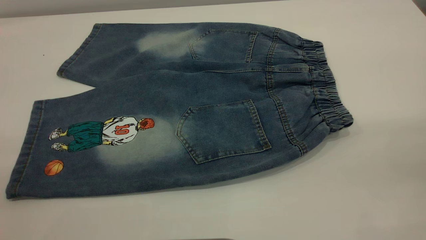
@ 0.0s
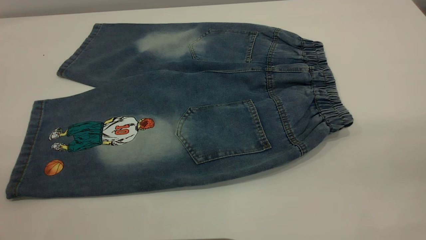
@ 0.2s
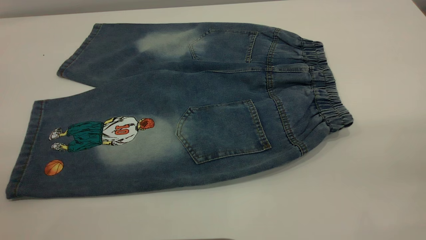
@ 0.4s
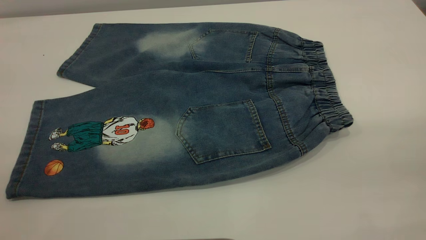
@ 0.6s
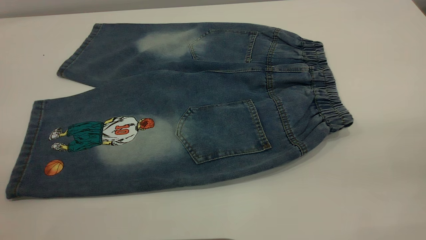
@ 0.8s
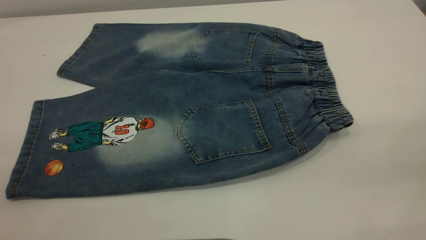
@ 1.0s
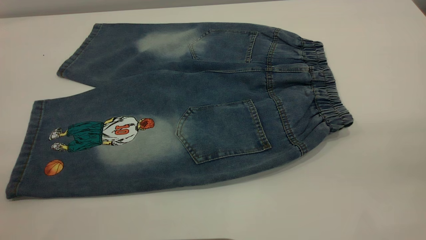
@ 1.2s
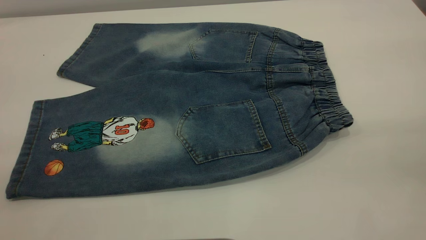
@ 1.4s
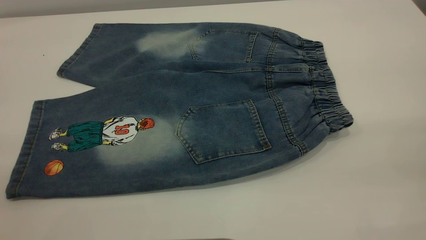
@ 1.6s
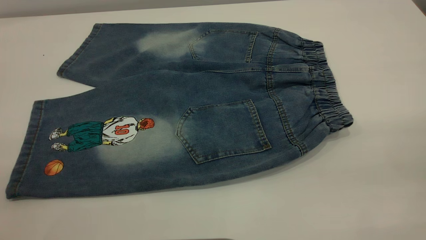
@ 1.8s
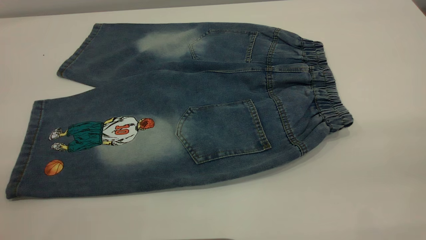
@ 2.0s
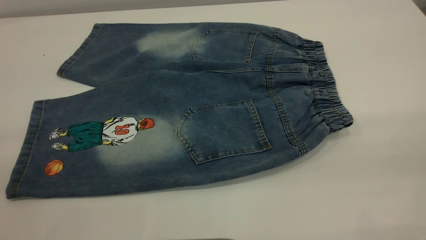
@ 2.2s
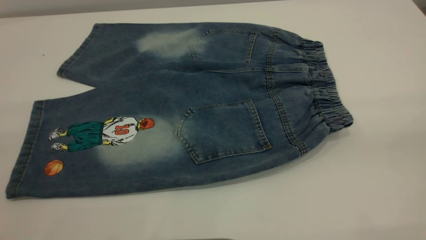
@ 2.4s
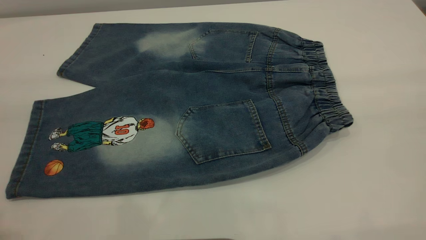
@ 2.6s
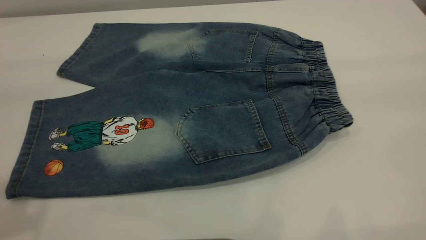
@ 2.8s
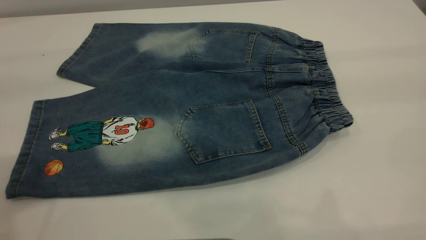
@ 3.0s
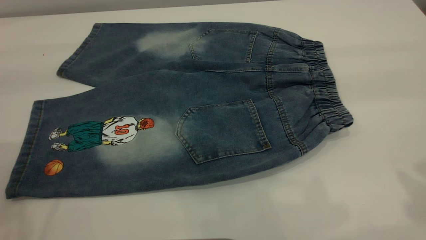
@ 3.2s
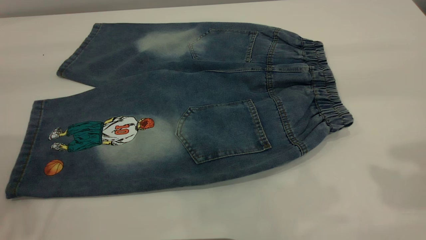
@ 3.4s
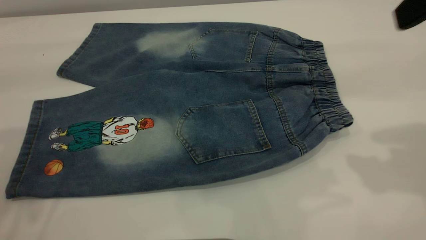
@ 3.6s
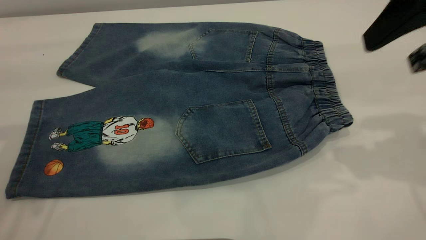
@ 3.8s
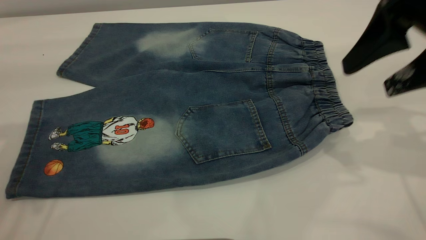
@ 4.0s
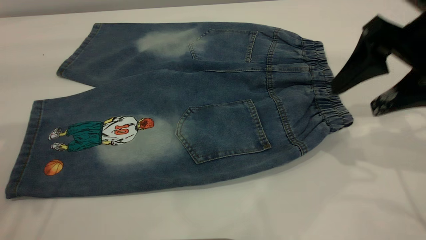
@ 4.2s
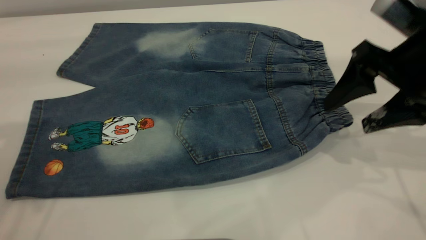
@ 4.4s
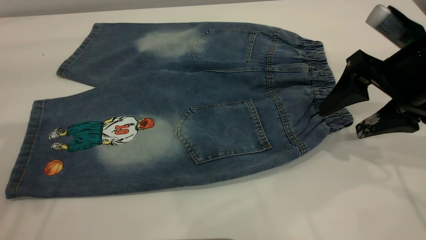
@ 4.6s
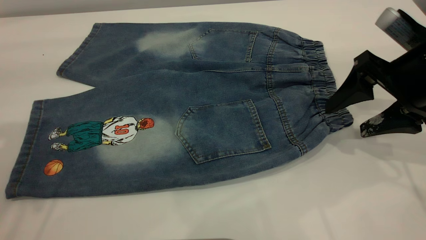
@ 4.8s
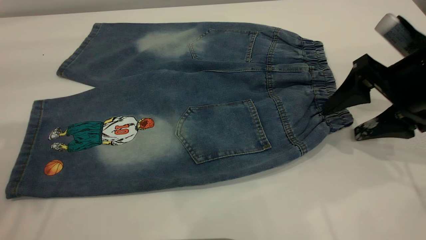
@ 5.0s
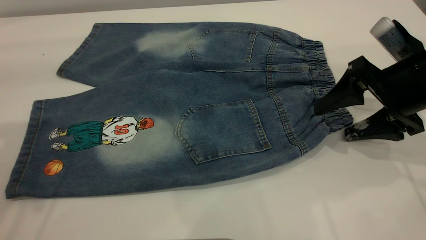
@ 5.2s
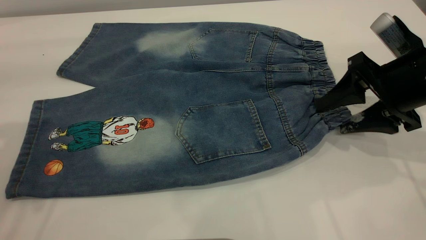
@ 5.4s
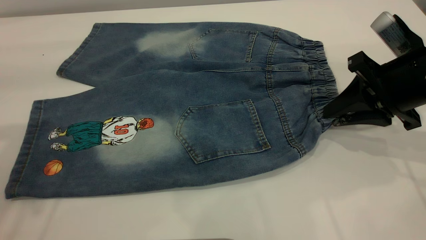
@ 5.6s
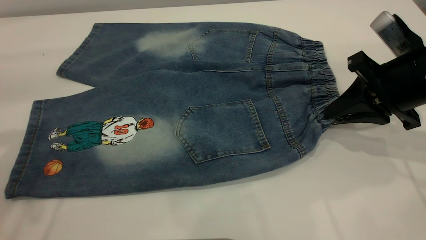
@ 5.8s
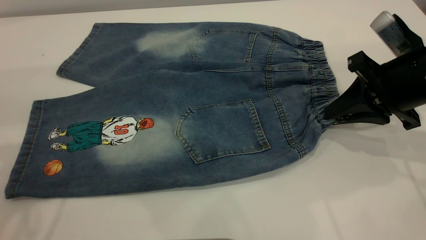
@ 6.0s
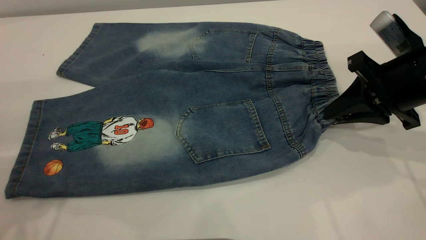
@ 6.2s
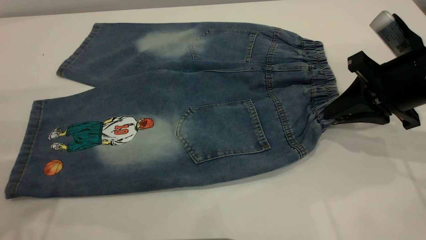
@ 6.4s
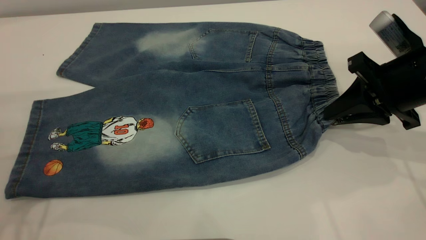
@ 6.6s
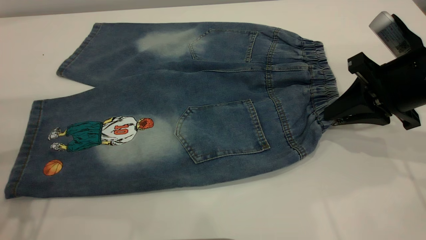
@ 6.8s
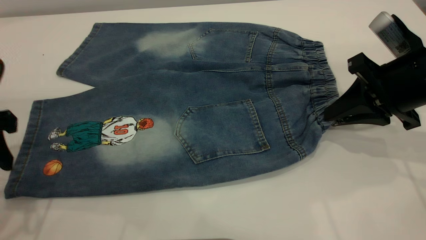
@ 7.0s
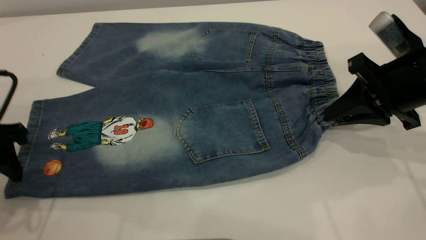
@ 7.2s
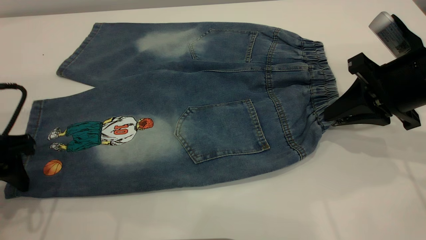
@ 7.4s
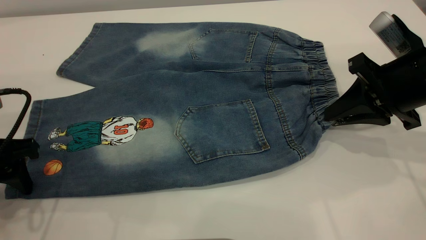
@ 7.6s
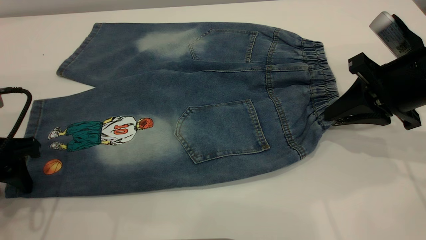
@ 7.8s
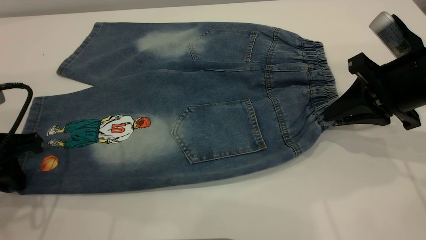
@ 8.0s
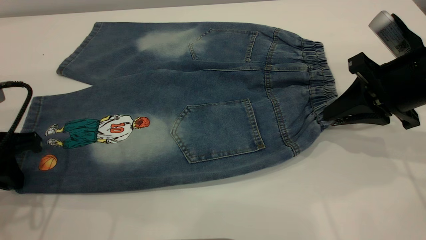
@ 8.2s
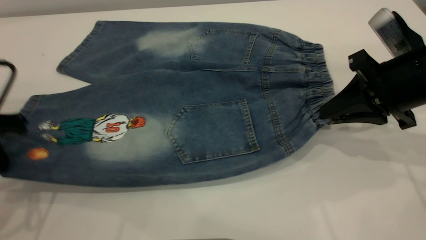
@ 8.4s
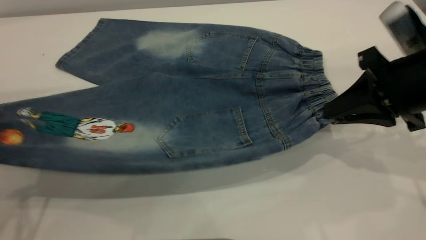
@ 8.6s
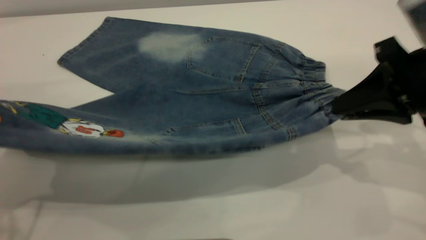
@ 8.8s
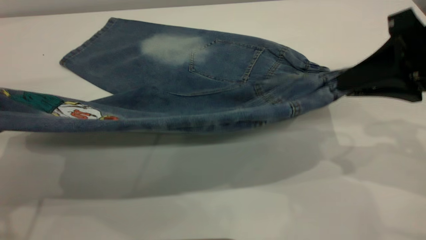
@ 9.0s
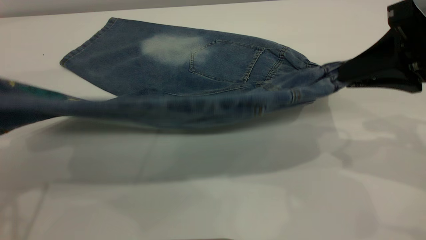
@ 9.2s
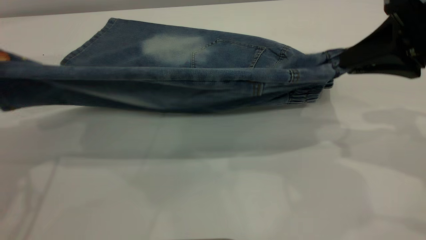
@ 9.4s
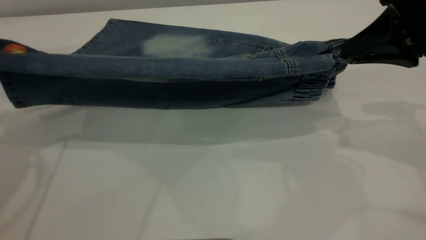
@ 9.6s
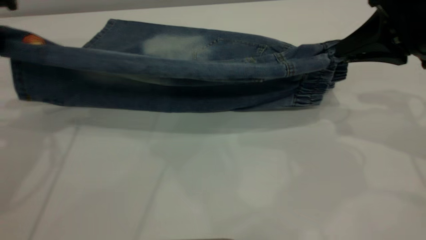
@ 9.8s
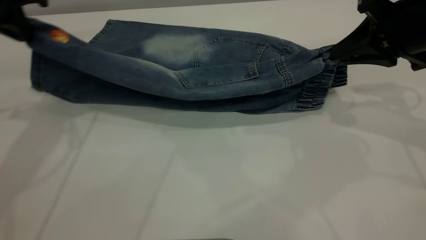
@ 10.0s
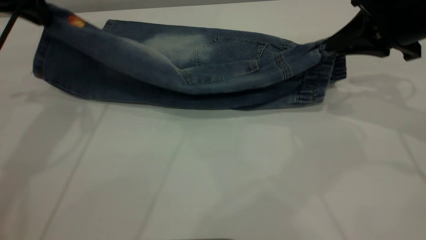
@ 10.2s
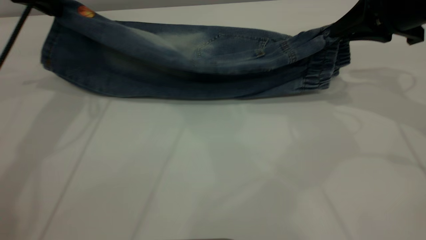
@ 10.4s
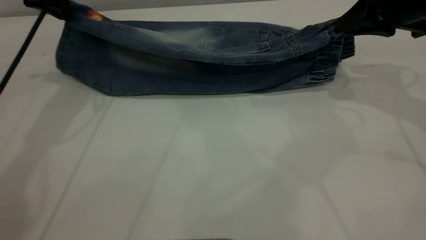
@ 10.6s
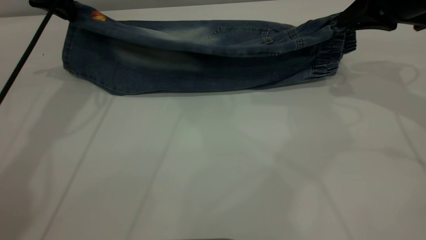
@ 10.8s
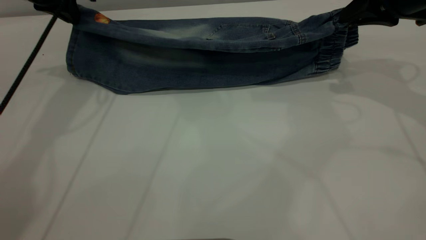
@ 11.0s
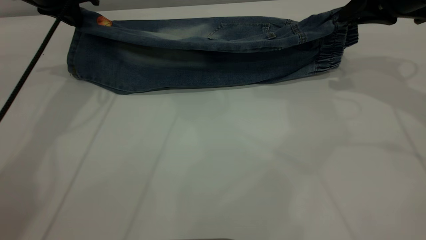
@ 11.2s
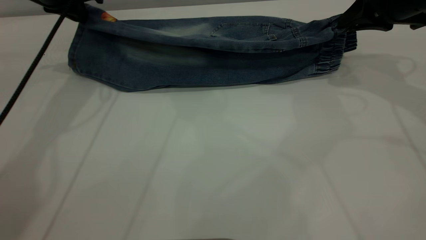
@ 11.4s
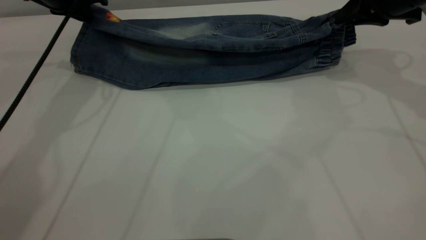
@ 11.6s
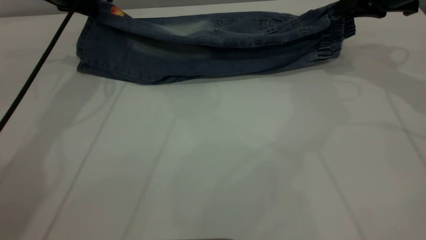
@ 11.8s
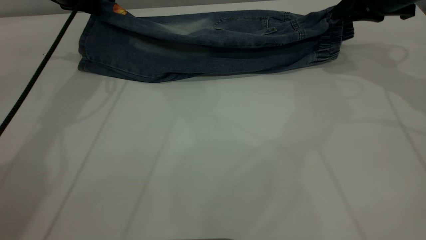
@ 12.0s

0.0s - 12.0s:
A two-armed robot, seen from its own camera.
0.0s - 1.6s: Neither gripper changes place.
3.0s - 4.4s: The right gripper shifts some 25 cm downward and forward. The left gripper goes some 5 cm forward.
4.4s - 6.0s: The right gripper closes up.
6.0s - 7.6s: The left gripper goes roughly 15 cm downward.
7.6s - 9.0s: The right gripper heads upward and backward, covering roughly 10 cm; the left gripper shifts roughly 15 cm upward, and closes up.
9.0s - 10.4s: The left gripper moves forward, some 25 cm. Meanwhile the right gripper heads forward, covering about 10 cm.
10.4s - 12.0s: The right gripper travels forward by about 5 cm. The left gripper is displaced forward and downward by about 10 cm.

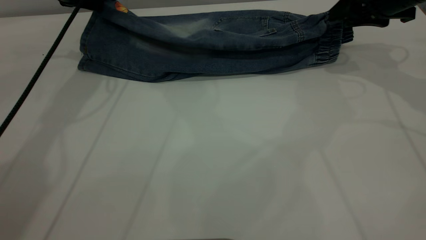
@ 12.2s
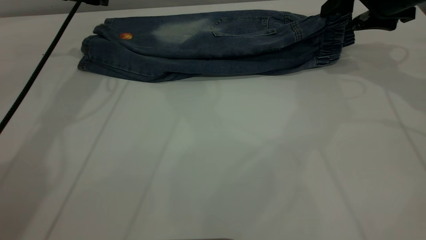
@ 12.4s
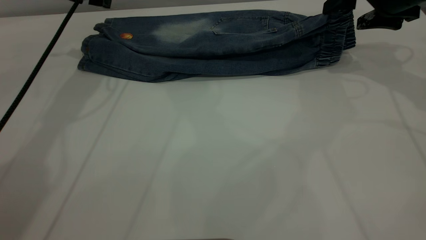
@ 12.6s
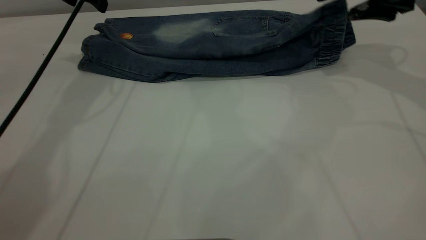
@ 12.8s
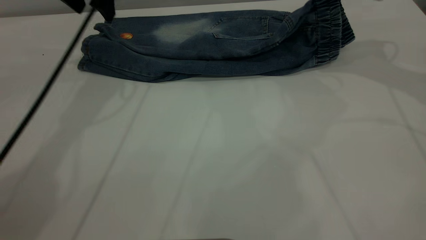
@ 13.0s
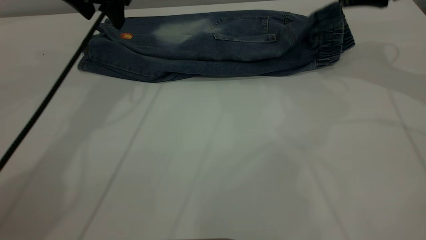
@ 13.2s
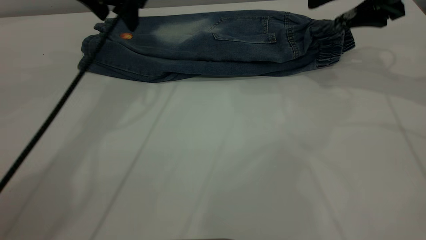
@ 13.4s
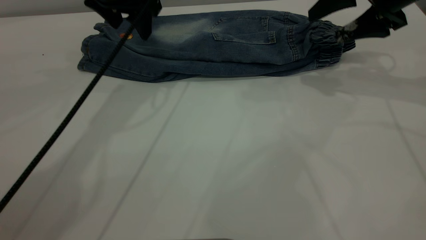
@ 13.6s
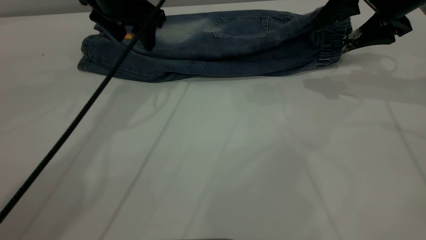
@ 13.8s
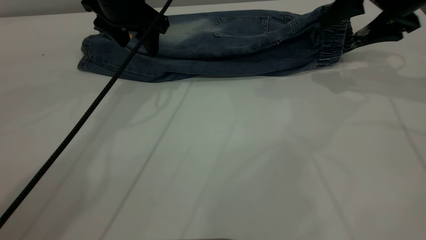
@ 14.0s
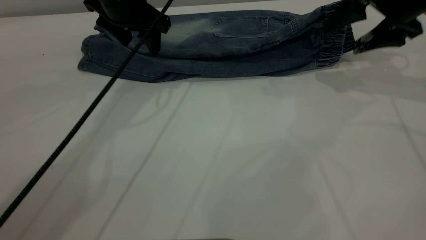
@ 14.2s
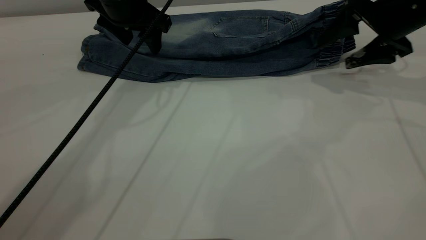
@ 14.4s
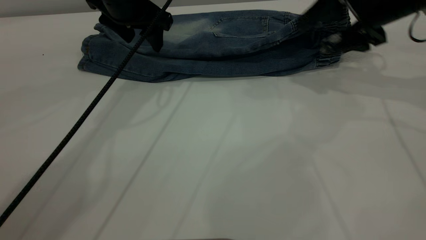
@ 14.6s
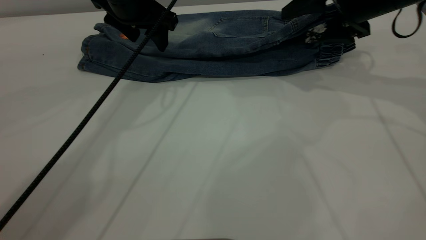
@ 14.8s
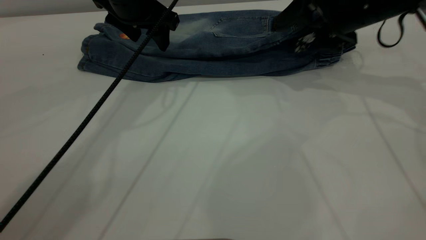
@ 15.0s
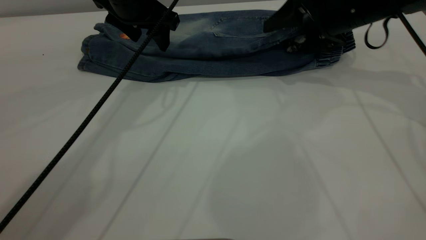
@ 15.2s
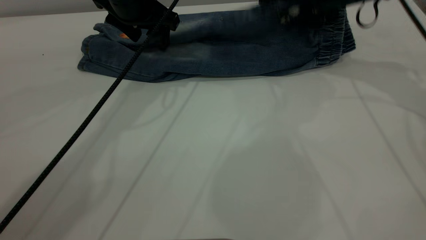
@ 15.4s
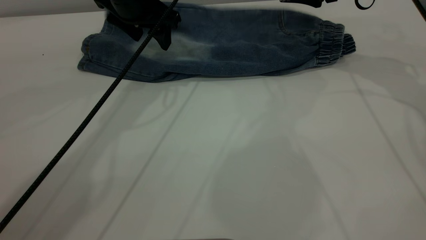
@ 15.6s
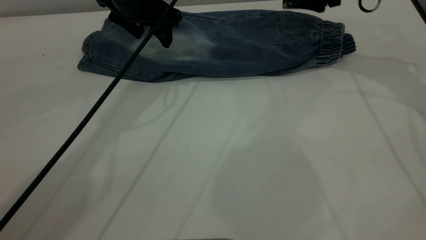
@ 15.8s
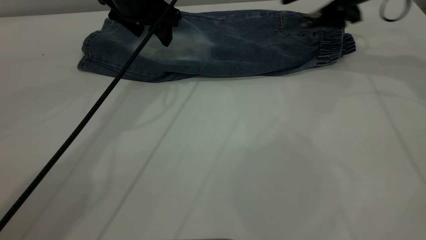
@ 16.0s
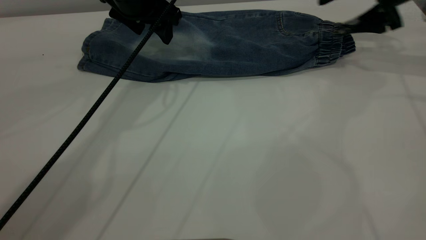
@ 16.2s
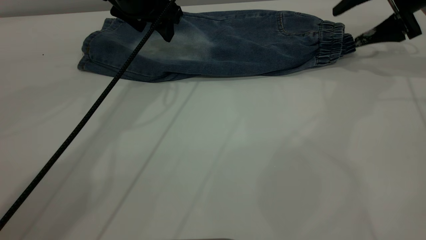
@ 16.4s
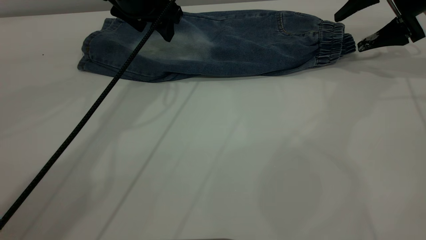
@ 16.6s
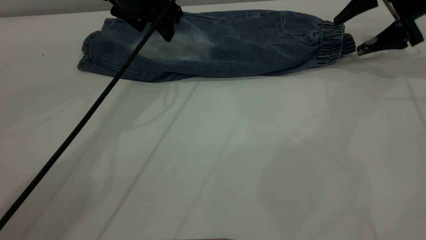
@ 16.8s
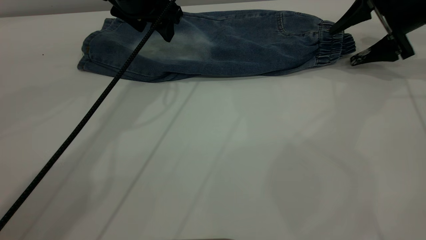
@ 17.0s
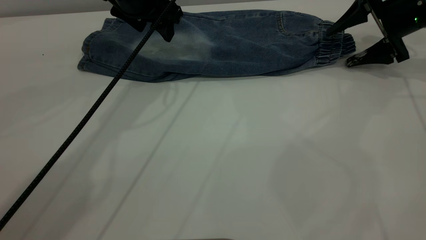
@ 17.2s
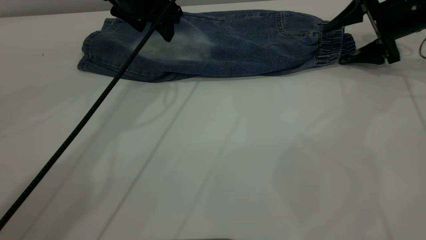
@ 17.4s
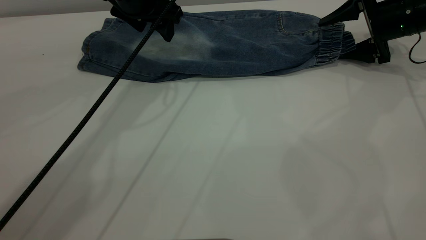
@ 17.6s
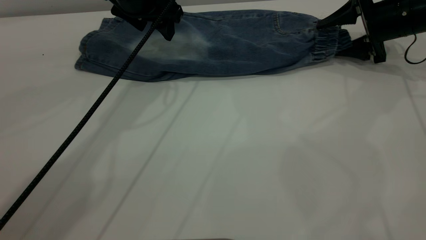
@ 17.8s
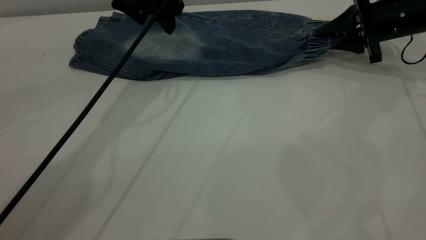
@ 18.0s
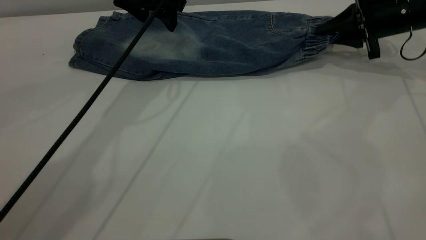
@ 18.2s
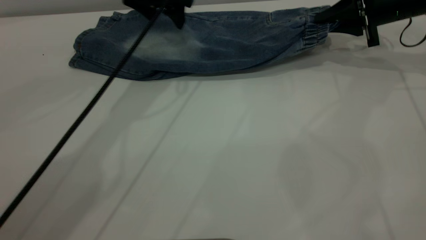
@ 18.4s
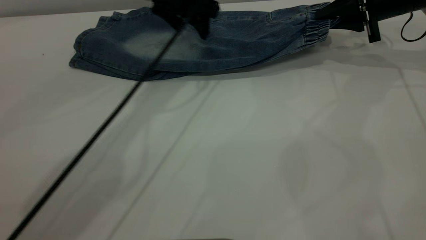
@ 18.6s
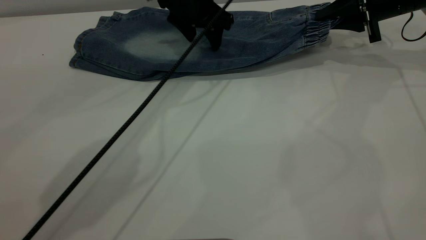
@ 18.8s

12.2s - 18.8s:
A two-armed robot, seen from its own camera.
12.2s - 13.8s: The left gripper travels to the right by roughly 10 cm, and opens.
13.8s - 15.4s: The right gripper moves forward and to the left, approximately 10 cm.
15.4s - 17.2s: The right gripper moves to the right and downward, approximately 10 cm.
17.2s - 18.8s: The left gripper shifts some 10 cm to the right. The right gripper closes up.
